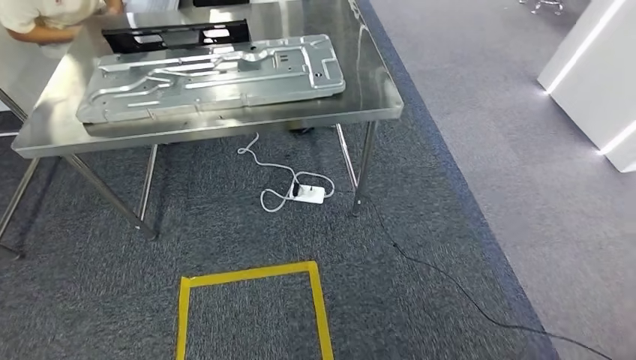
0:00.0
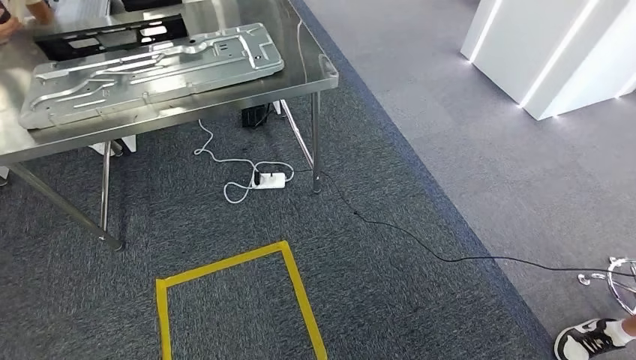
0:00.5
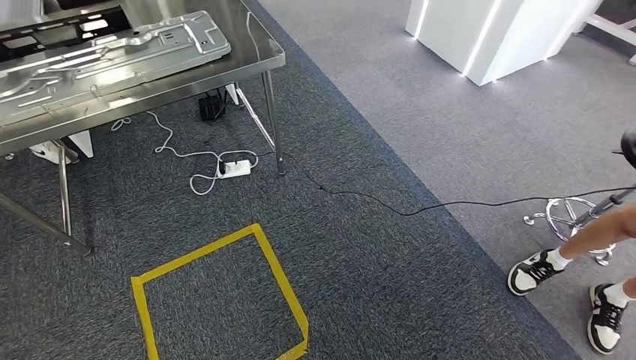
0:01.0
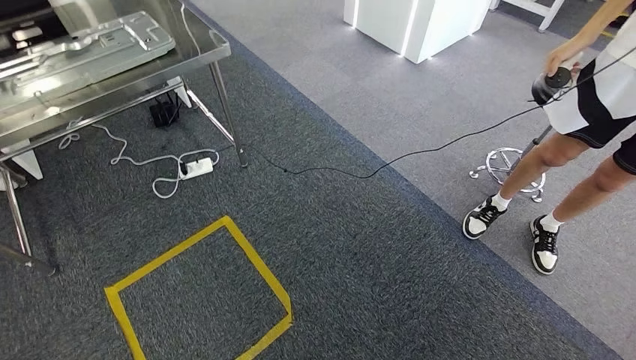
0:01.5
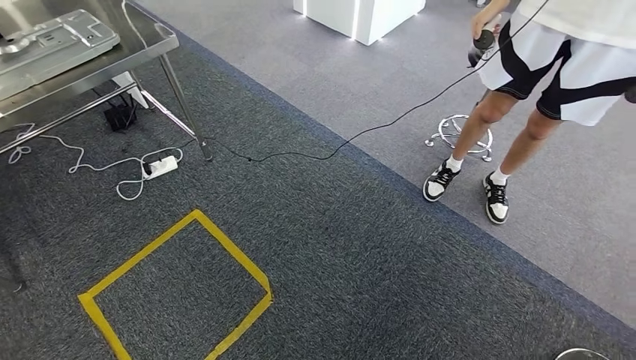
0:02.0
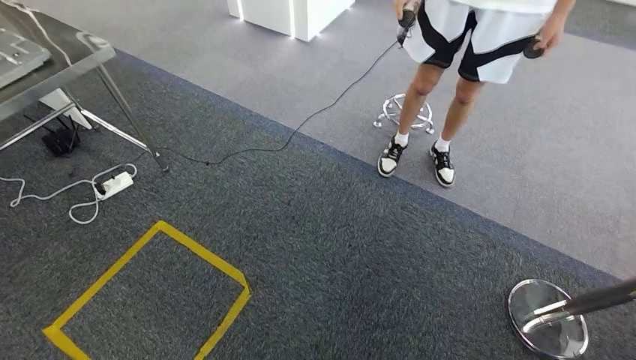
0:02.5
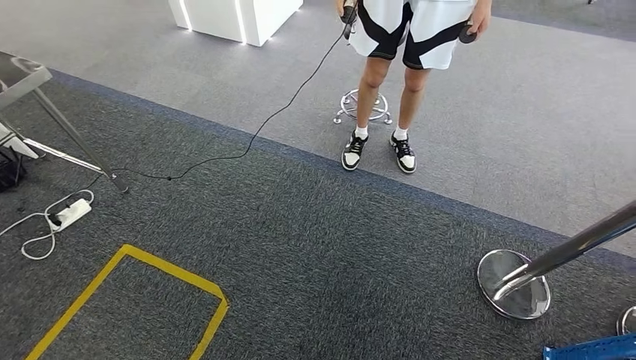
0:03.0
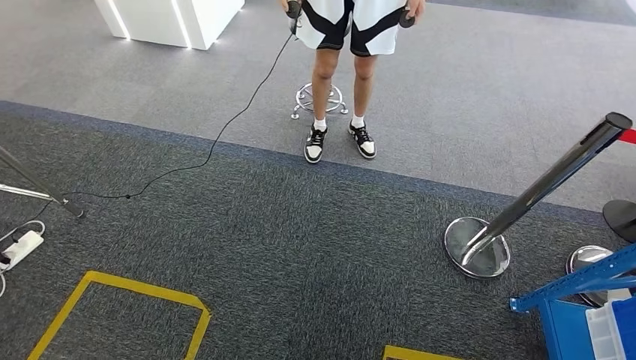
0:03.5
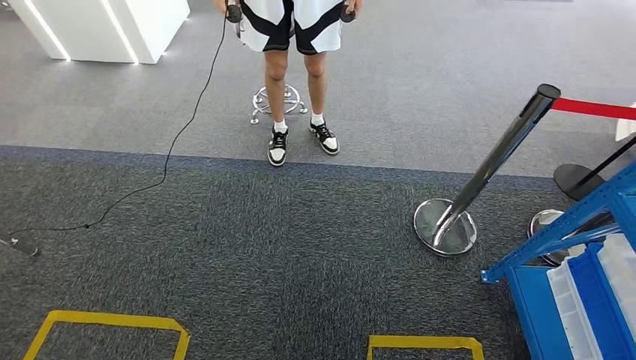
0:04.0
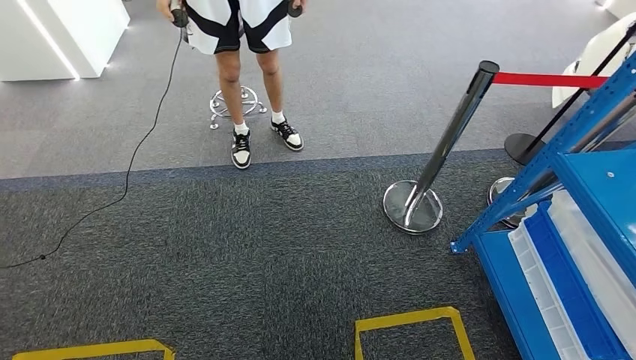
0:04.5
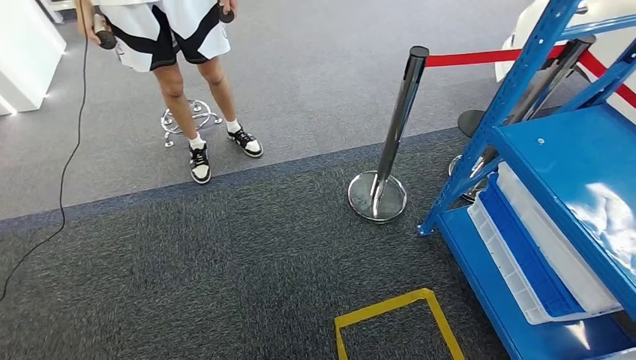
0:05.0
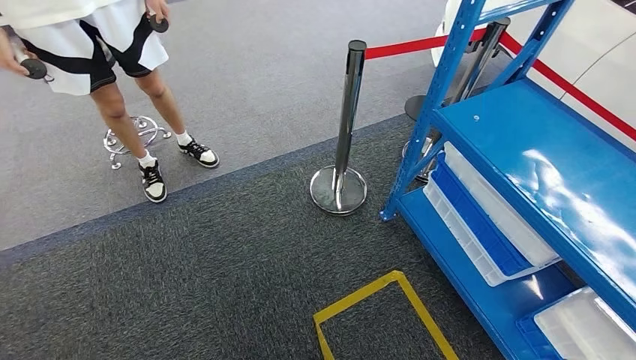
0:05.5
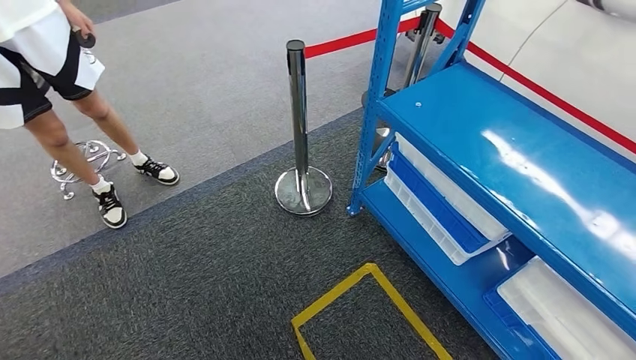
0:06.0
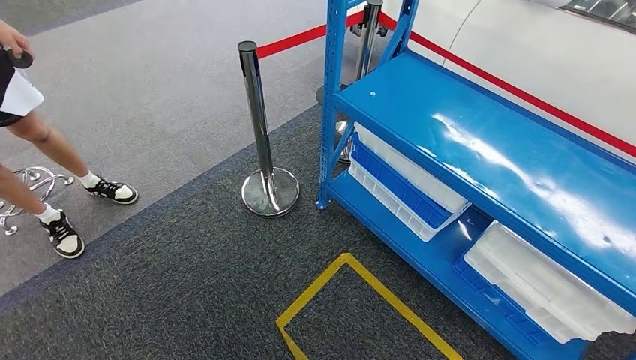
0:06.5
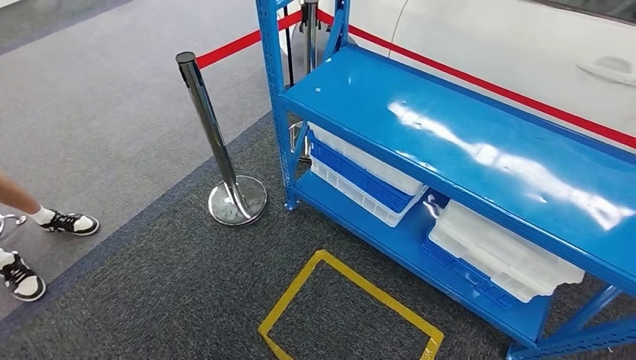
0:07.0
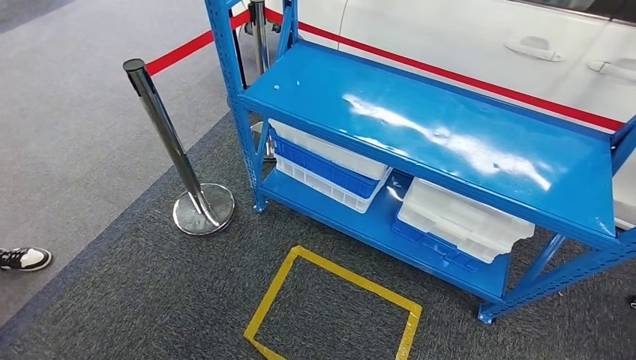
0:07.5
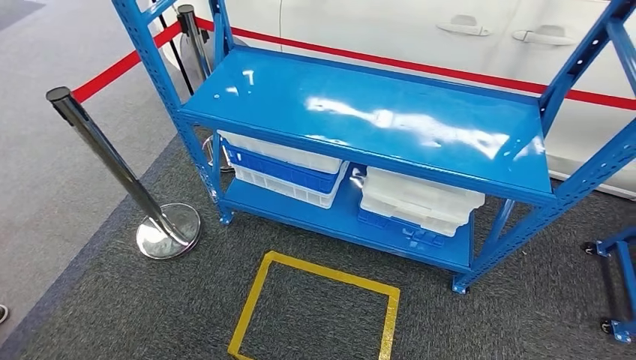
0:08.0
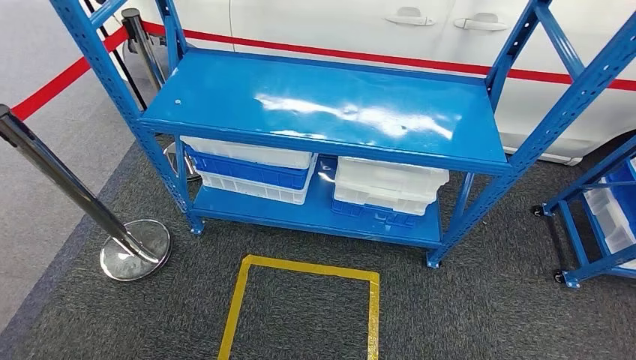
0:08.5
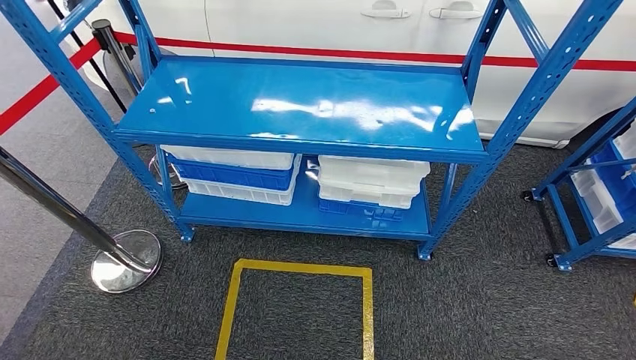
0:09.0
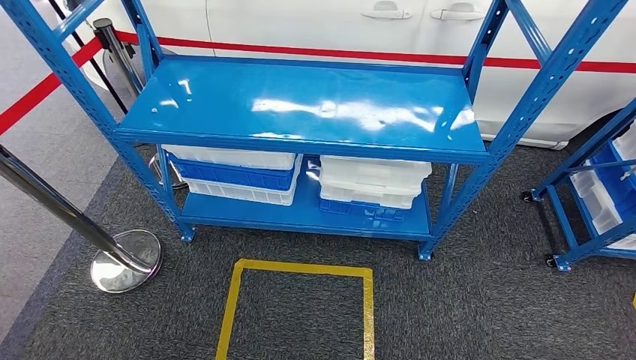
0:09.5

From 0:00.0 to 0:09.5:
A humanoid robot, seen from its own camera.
Step, from 0:00.0 to 0:09.5: Move to the initial position of the shelf.
